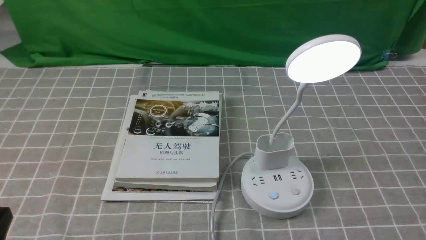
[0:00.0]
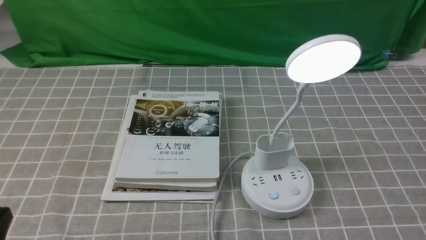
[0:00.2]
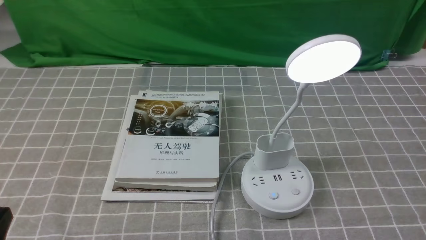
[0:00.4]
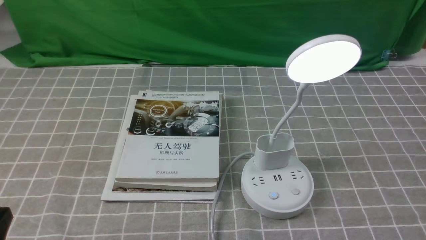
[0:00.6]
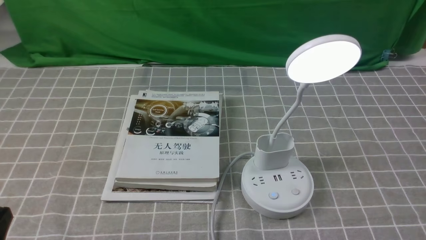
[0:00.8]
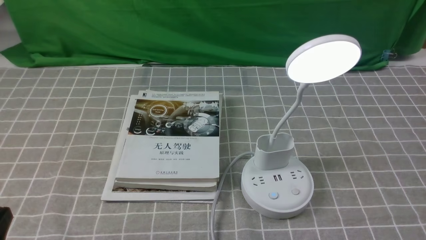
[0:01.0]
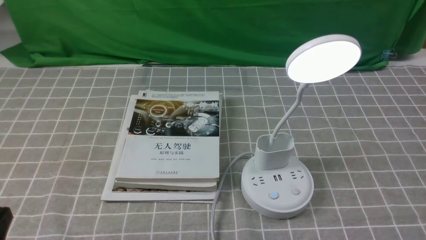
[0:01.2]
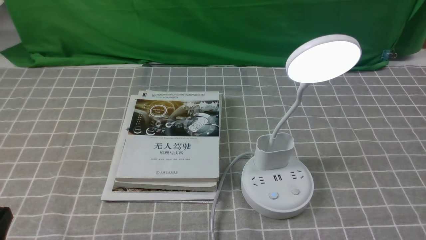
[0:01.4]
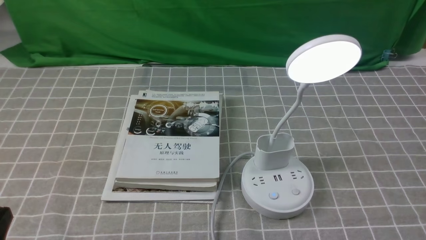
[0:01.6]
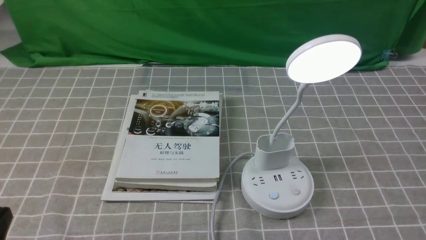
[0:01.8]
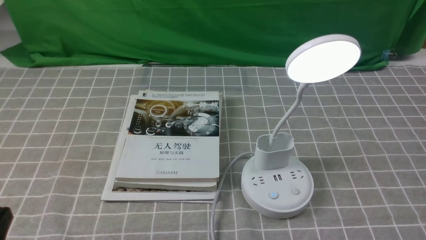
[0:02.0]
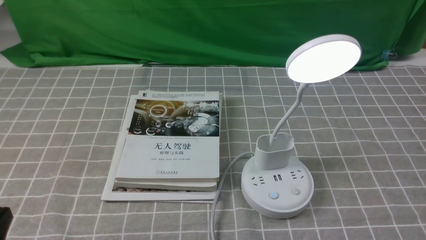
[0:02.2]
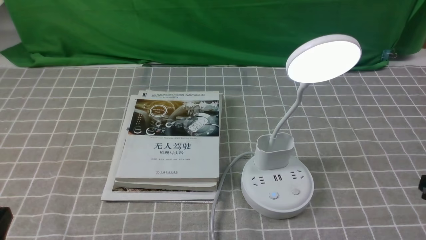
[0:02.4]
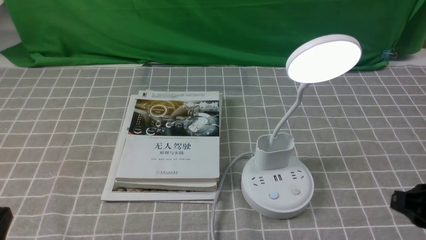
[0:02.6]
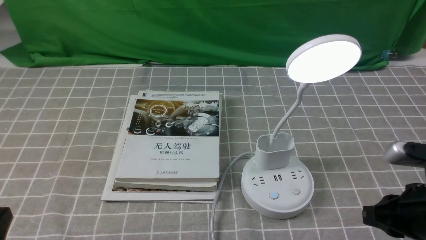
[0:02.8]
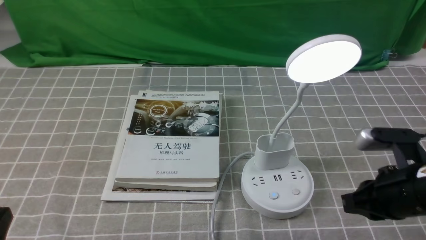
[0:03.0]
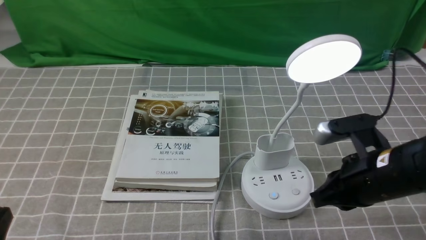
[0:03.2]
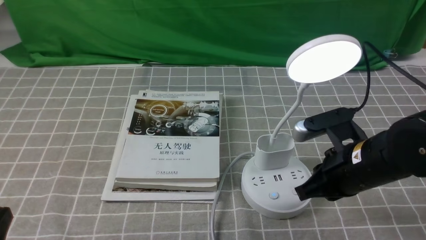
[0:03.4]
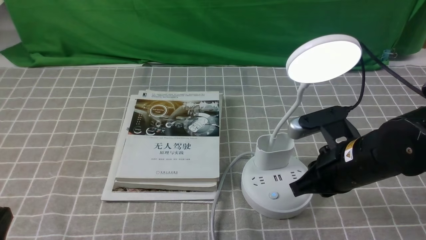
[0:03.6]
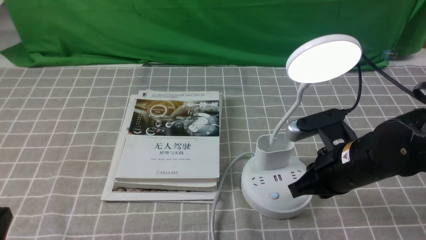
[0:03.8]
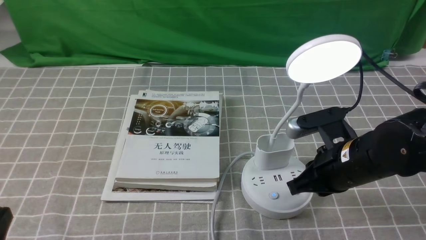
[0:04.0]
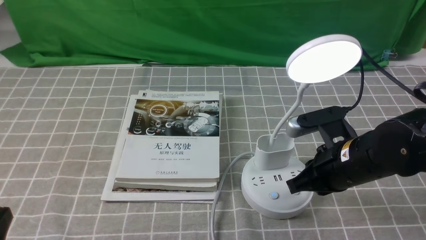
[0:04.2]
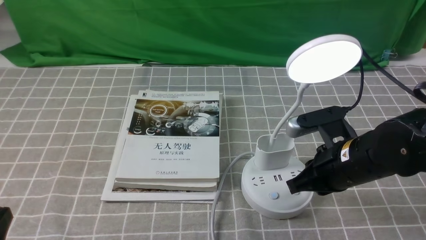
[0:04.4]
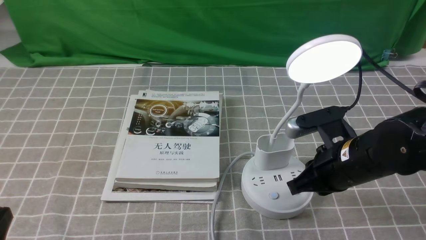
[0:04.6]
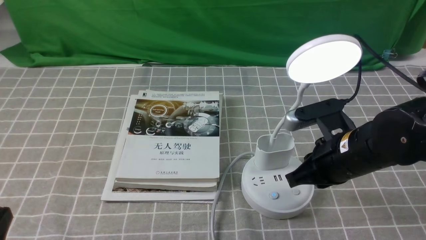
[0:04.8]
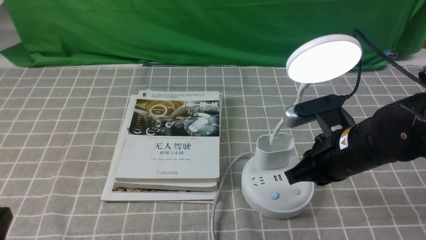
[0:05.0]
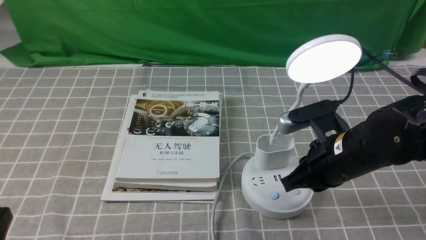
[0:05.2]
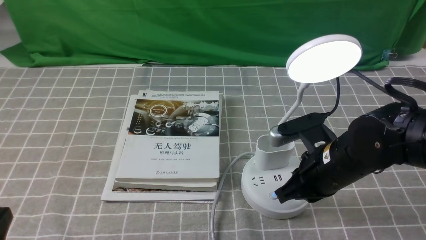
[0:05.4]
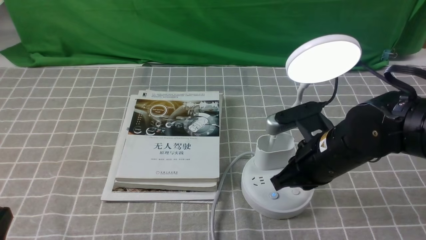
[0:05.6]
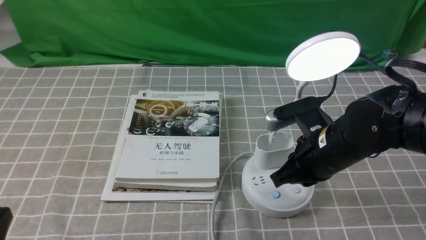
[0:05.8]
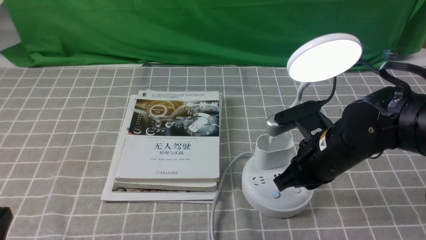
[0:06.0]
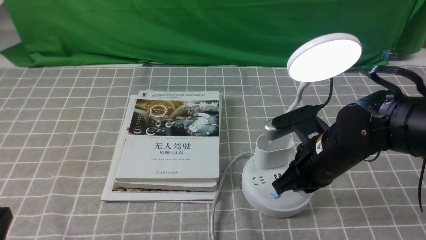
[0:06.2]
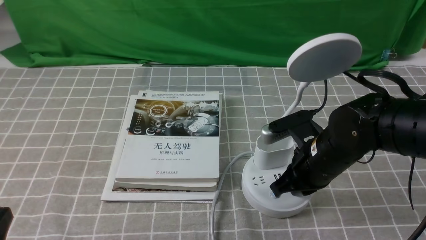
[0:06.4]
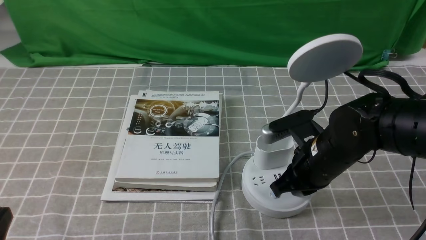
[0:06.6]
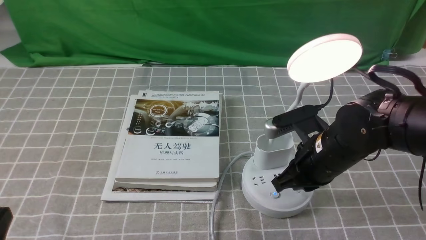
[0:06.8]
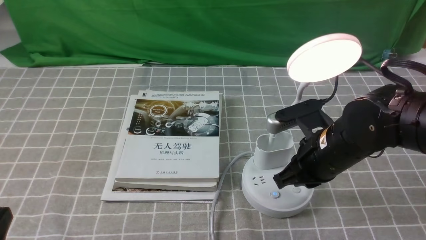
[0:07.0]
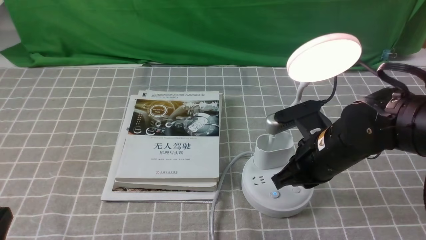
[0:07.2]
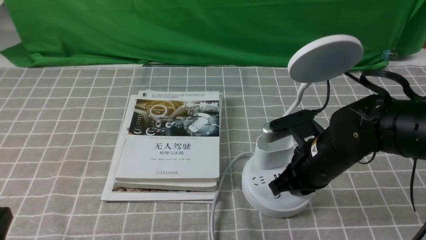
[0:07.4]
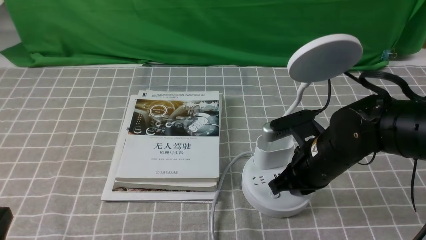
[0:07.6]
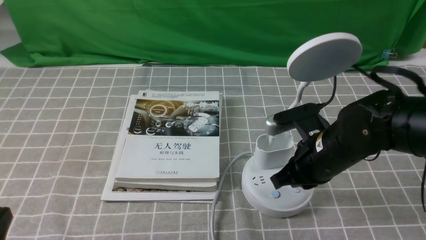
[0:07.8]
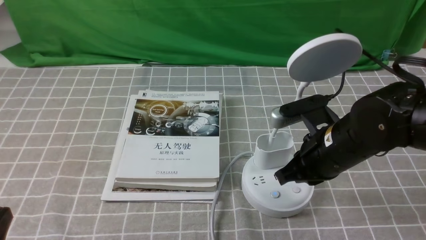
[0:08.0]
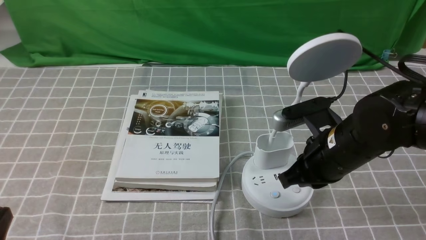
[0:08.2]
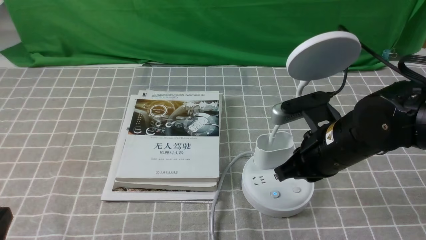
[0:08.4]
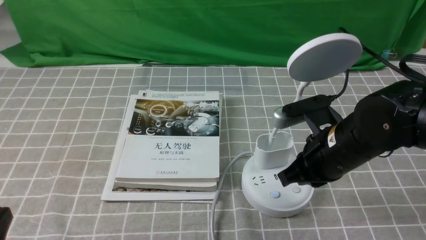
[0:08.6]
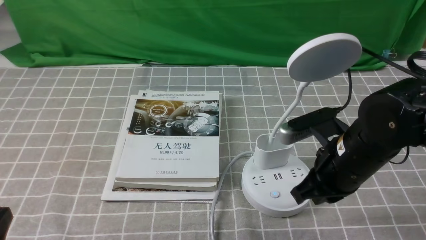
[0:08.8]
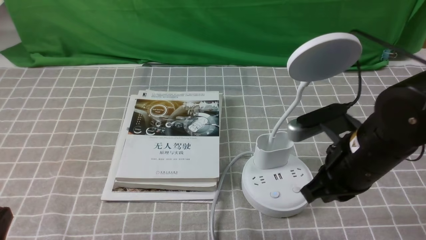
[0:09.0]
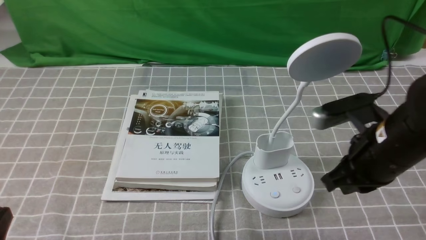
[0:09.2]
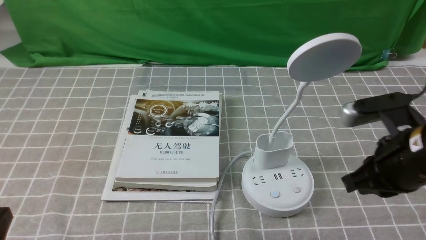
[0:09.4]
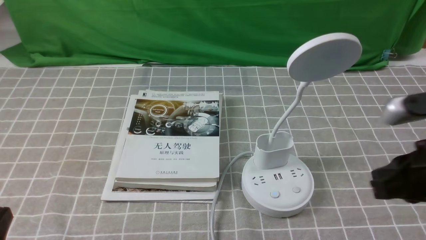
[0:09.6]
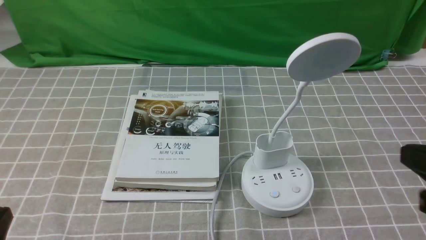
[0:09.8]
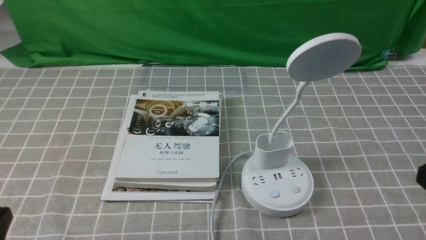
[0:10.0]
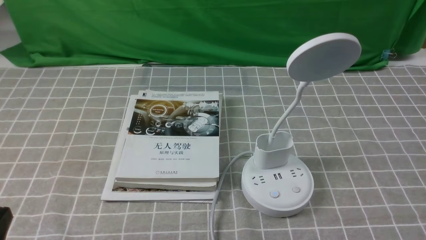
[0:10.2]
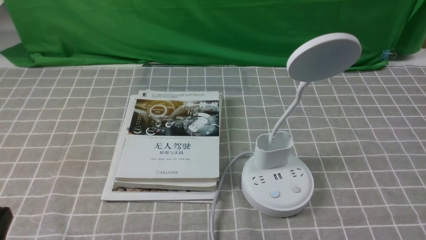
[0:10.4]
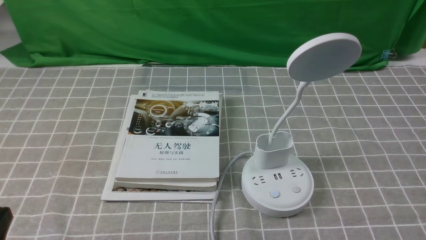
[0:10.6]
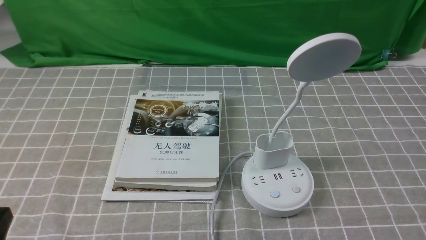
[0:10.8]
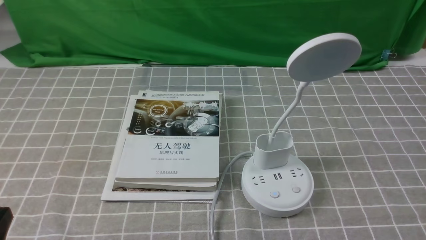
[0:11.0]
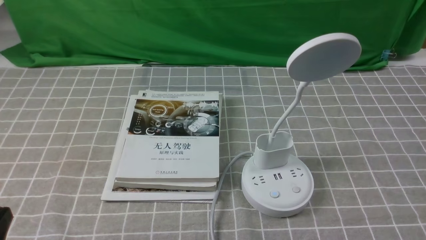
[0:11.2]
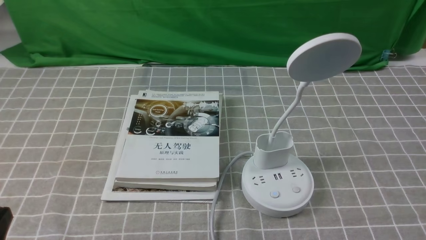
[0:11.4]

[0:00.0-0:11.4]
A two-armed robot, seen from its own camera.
Task of the whole recording: turn off the desk lamp on the grey coffee tablecloth by hand.
Step, 0:00.0 to 0:07.8: use the right arm to press the button switch on the lamp holder.
0:01.4 to 0:02.8: The right gripper heads forward, covering approximately 15 cm, and closes.
0:02.8 to 0:04.2: The right gripper travels to the left and forward by roughly 10 cm.
0:04.2 to 0:08.6: The grippers make only small movements.
0:08.6 to 0:10.0: The right gripper travels backward, to the right and upward by about 20 cm.
